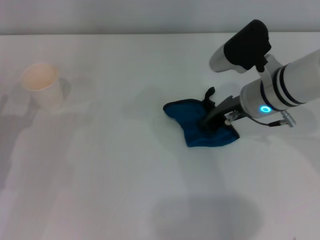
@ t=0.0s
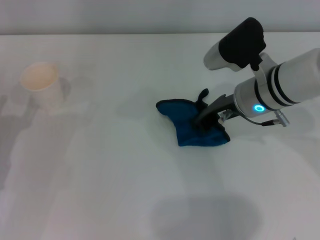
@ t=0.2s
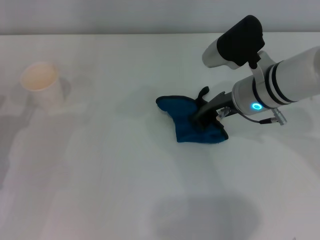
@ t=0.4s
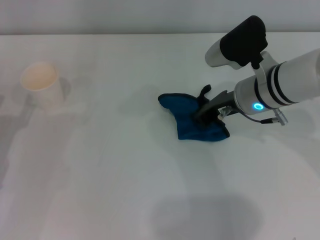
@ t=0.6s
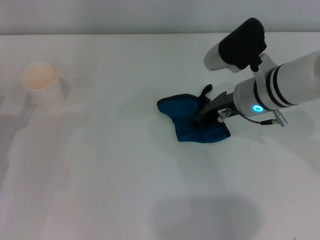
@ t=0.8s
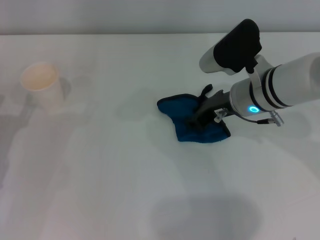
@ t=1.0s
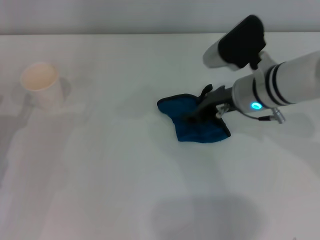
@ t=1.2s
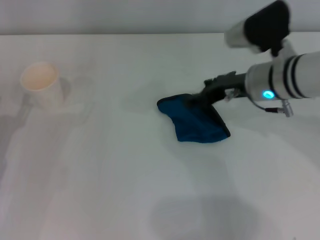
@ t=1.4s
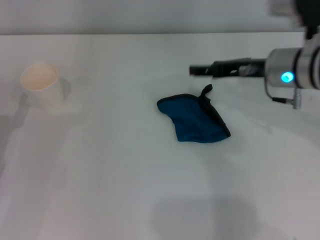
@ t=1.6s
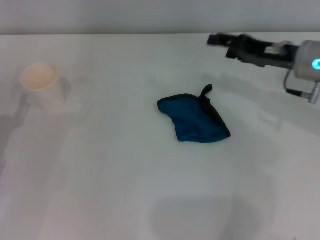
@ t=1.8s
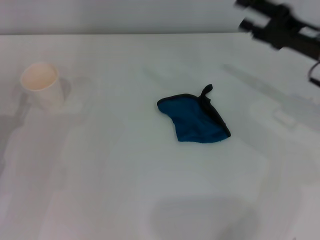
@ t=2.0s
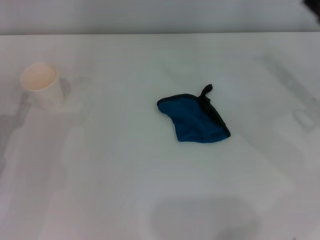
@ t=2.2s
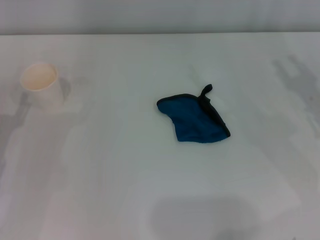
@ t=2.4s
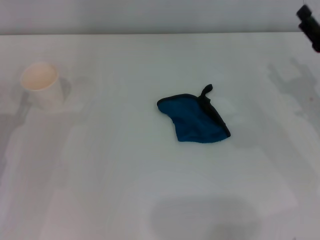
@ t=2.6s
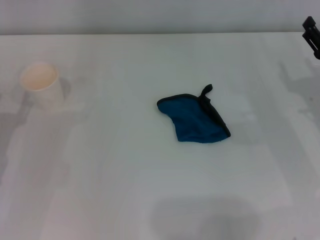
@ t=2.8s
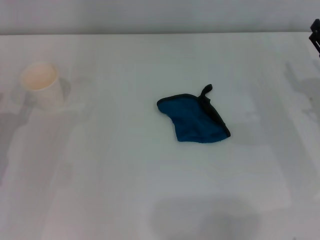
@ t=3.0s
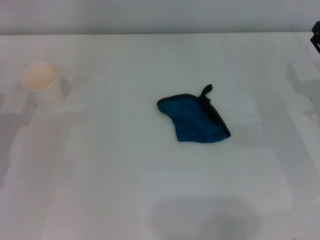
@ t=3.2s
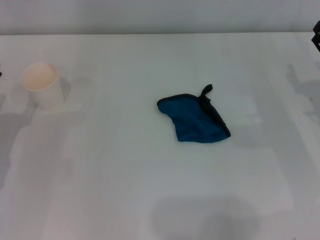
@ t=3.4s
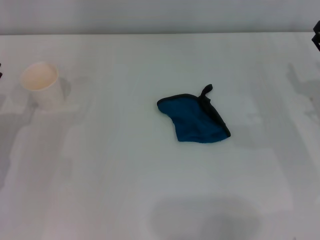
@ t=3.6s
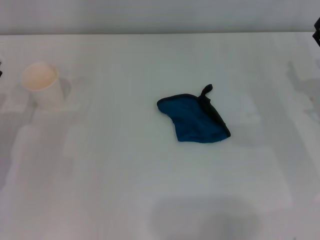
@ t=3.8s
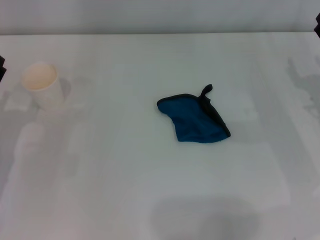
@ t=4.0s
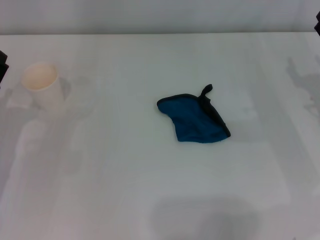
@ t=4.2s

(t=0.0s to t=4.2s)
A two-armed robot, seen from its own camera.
Step, t=0.4s - t=0.8s: Place the rag on the table with the right gripper.
t=0.0s - t=1.4s: The right gripper opens.
t=1.4s - t=2.8s: The right gripper is displaced to the right and downward by some 15 cm, and opens its fingers.
t=2.8s - t=4.2s: The grippers stay close to where they were, moving slightly.
